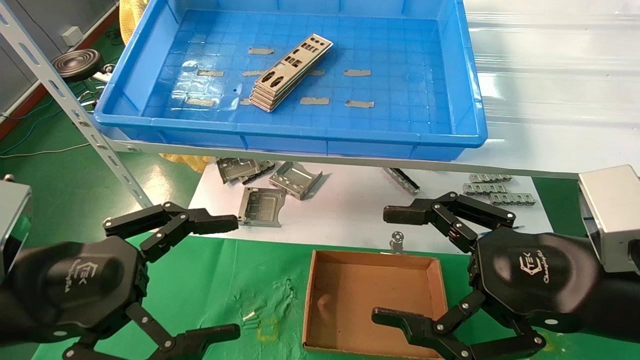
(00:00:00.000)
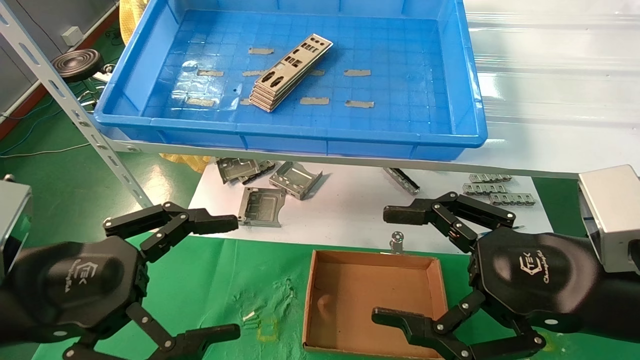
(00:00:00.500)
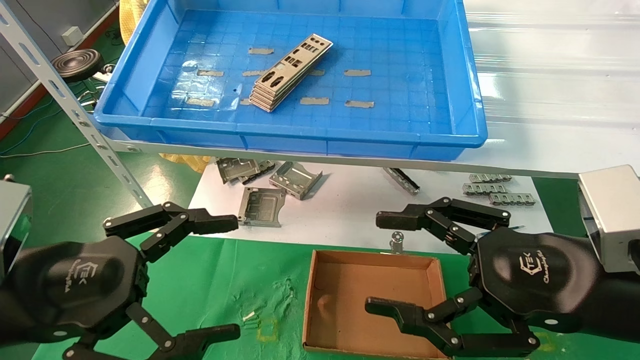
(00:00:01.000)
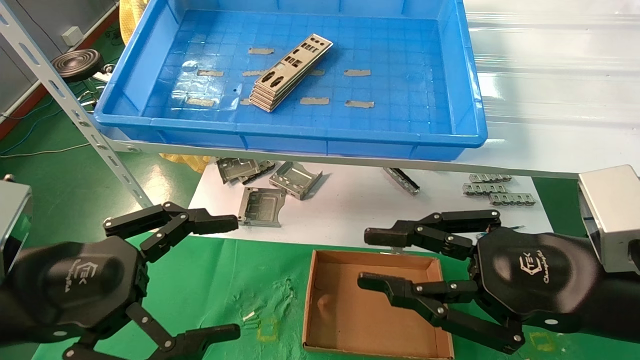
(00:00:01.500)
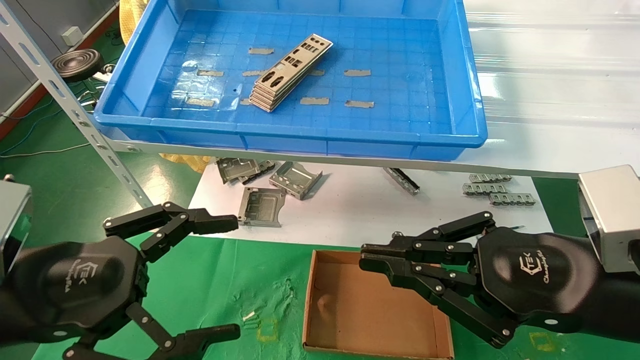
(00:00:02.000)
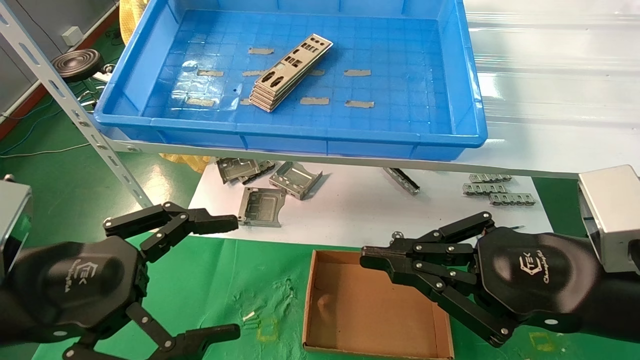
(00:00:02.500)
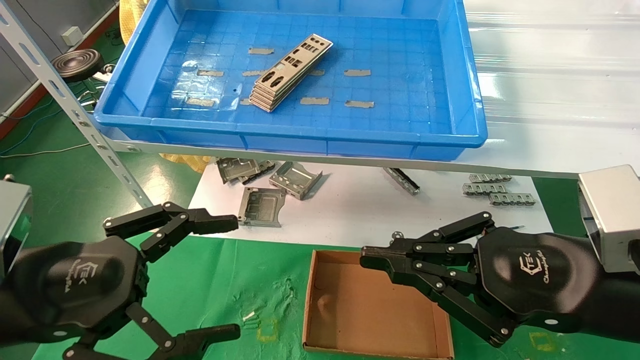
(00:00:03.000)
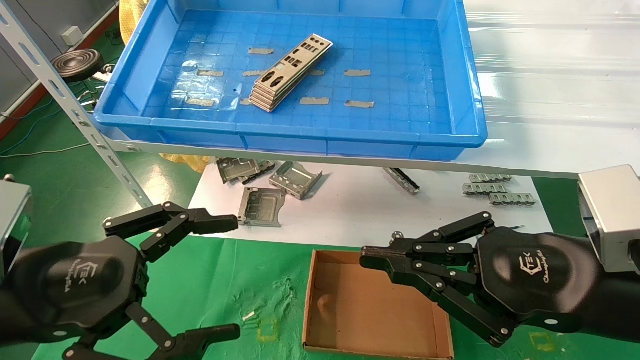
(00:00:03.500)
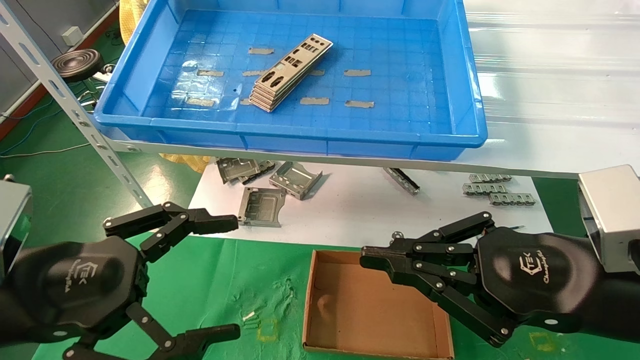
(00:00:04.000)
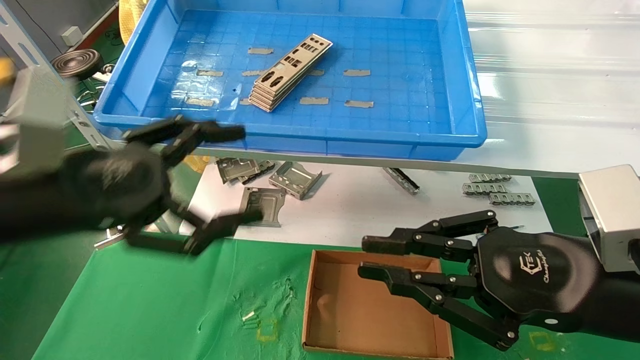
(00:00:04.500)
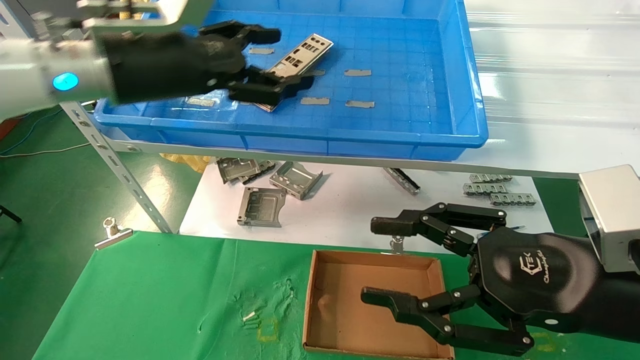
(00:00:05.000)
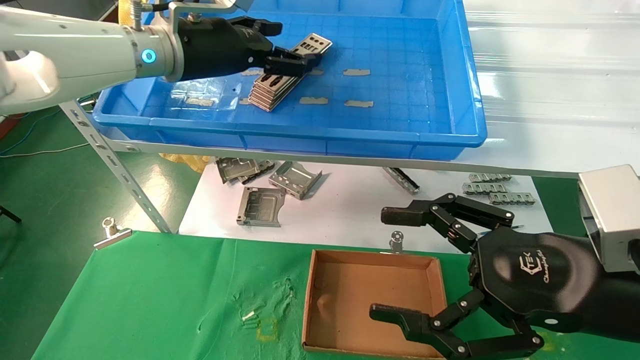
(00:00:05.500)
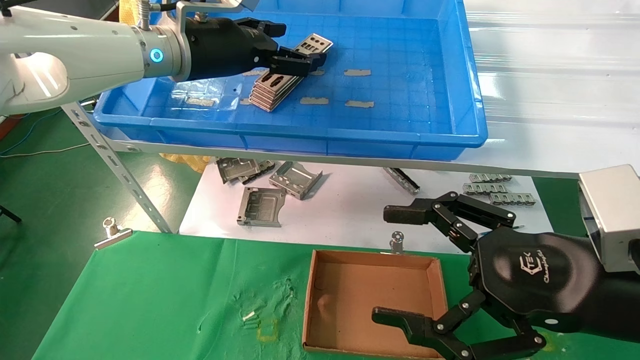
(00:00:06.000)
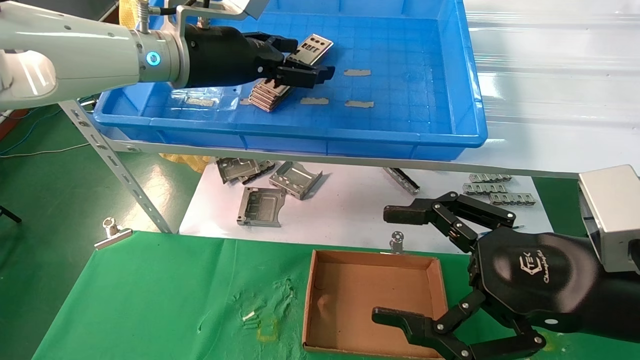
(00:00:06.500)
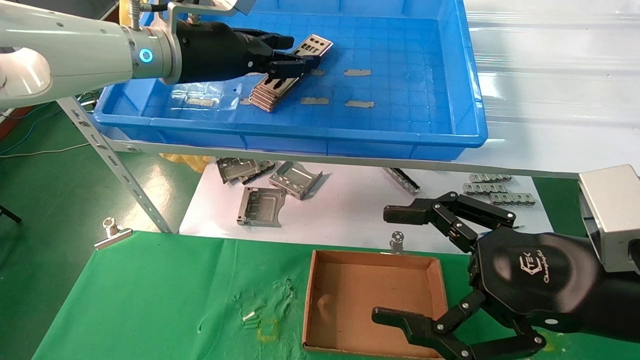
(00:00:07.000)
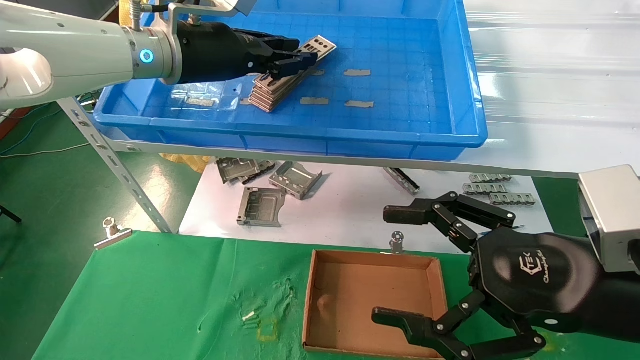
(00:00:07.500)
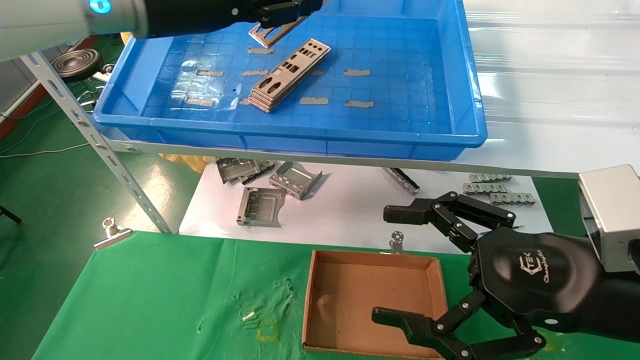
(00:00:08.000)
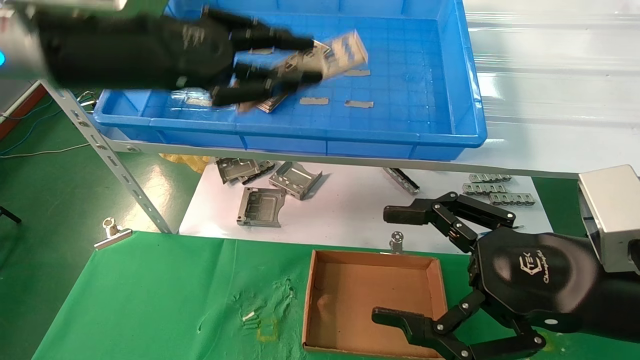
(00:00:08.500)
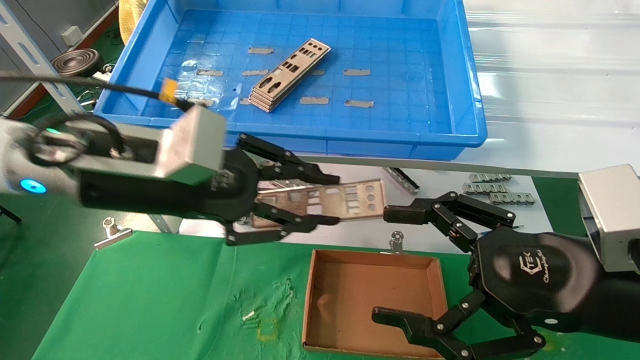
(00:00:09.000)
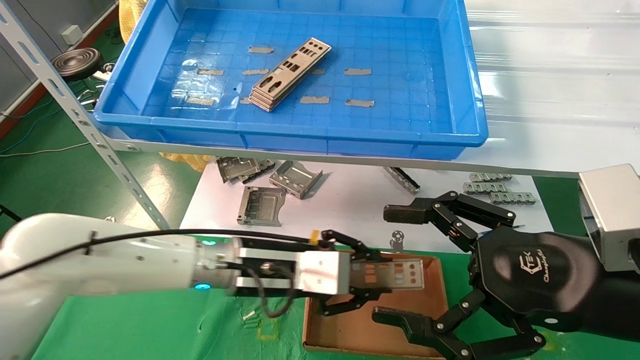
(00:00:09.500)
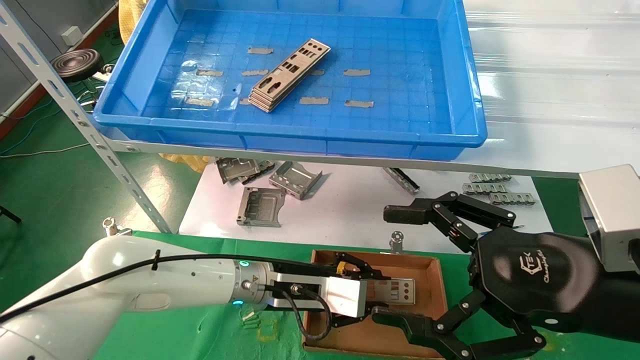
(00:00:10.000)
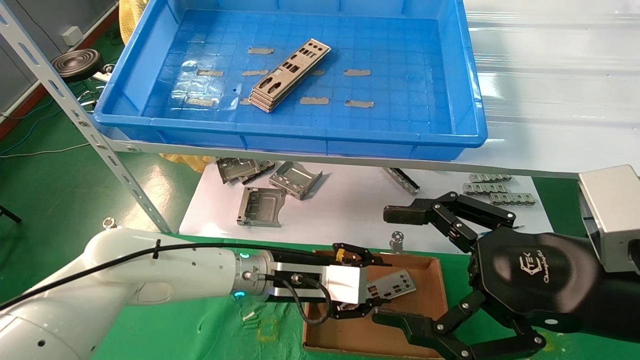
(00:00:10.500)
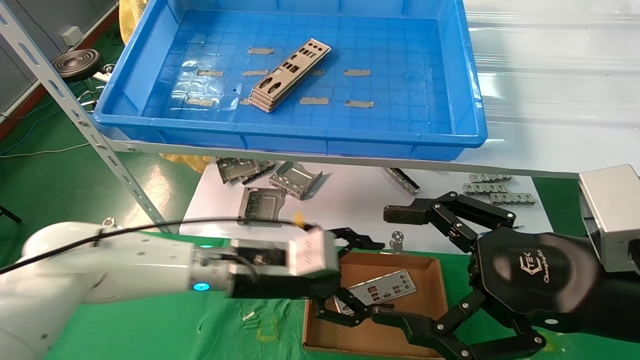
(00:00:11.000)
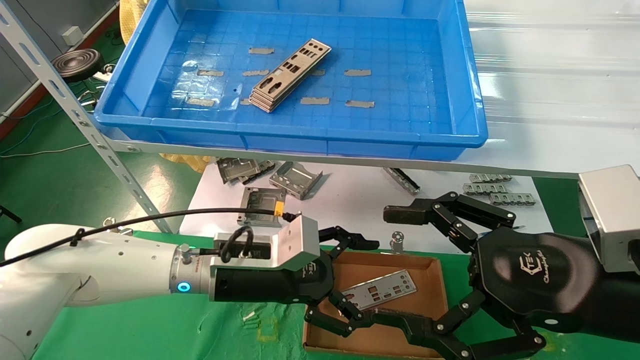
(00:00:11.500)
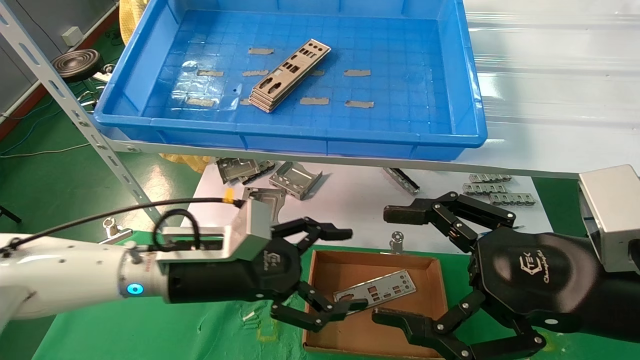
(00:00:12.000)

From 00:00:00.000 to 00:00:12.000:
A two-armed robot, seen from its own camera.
Task of the whole recording: pick up the parts on the tray and put them in the cardboard box.
Step, from 00:00:05.000 to 00:00:07.500: Pick up the IO bracket from the container box.
Step, from 00:00:08.000 to 00:00:10.500: Place the IO bracket into the ingredient slot.
From 00:00:00.000 to 00:00:02.000: The right gripper closes its fingers.
From 00:00:02.000 to 00:00:04.000: Neither gripper changes place.
From 00:00:04.000 to 00:00:06.000: The left gripper heads forward, upward and to the right, covering roughly 30 cm. Meanwhile the right gripper opens its fingers.
From 00:00:06.000 to 00:00:08.000: The left gripper shifts by approximately 5 cm, and closes its fingers.
From 00:00:08.000 to 00:00:10.000: The left gripper shifts roughly 35 cm downward.
From 00:00:10.000 to 00:00:12.000: The left gripper travels to the left, backward and upward by roughly 10 cm, and opens.

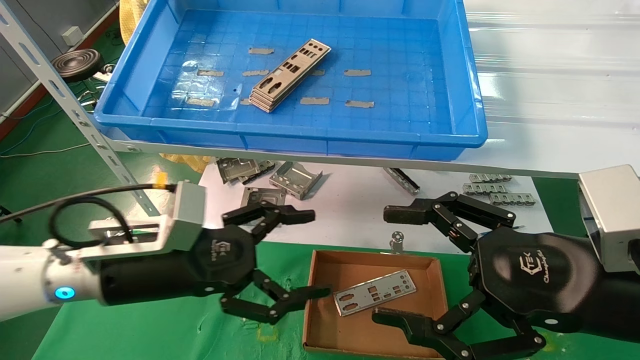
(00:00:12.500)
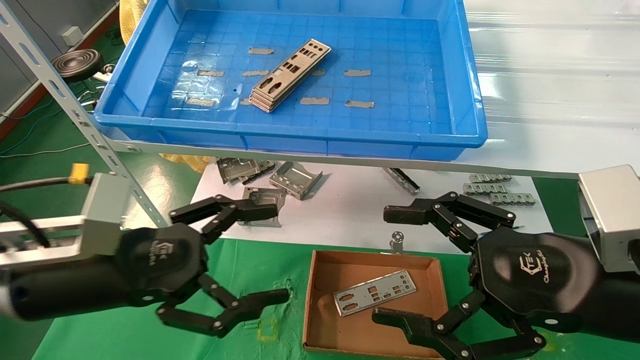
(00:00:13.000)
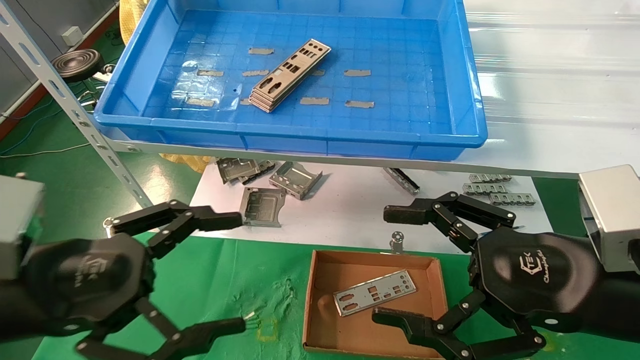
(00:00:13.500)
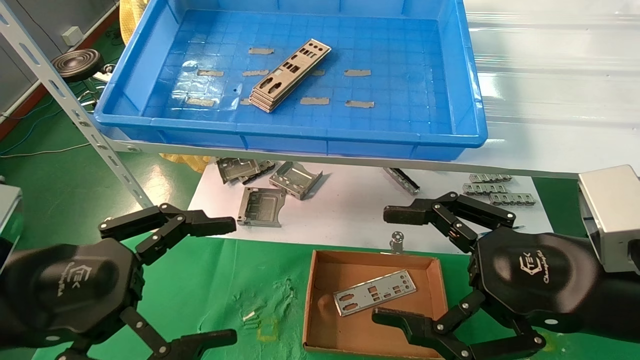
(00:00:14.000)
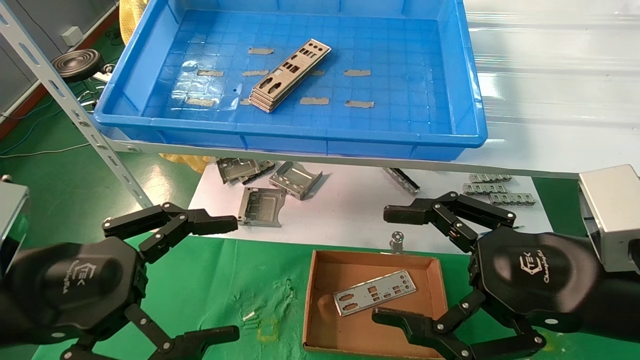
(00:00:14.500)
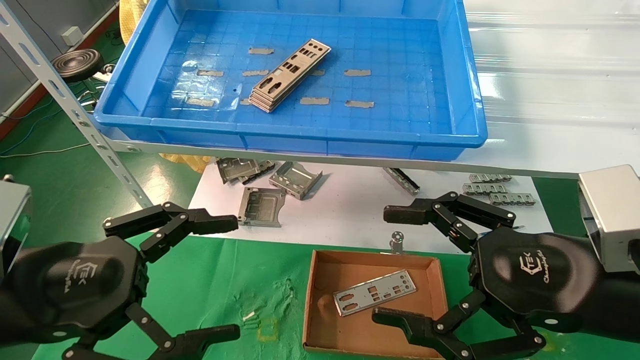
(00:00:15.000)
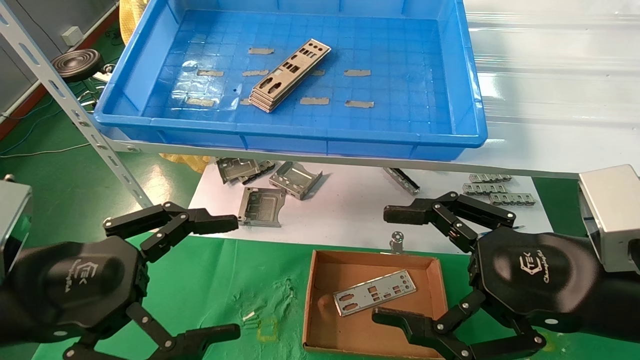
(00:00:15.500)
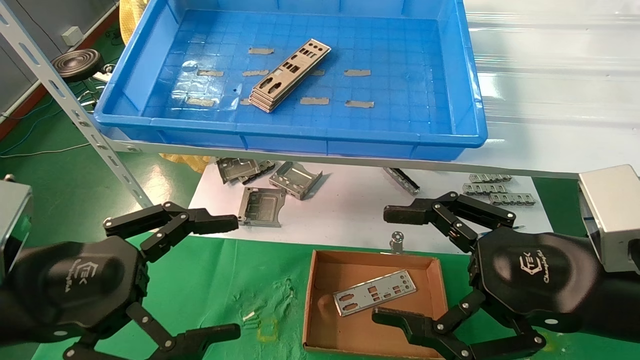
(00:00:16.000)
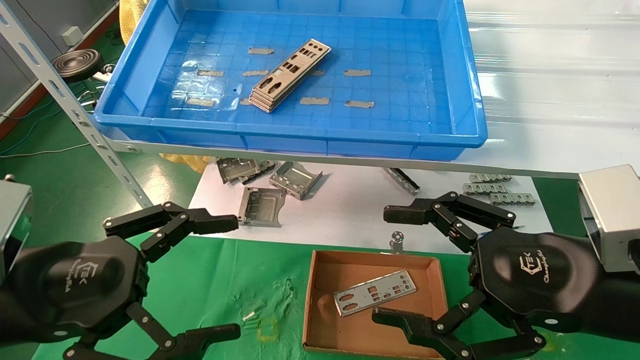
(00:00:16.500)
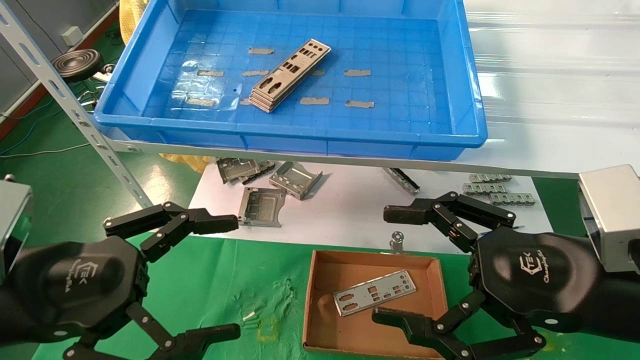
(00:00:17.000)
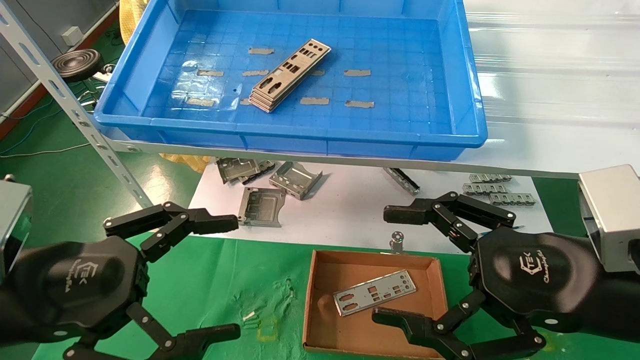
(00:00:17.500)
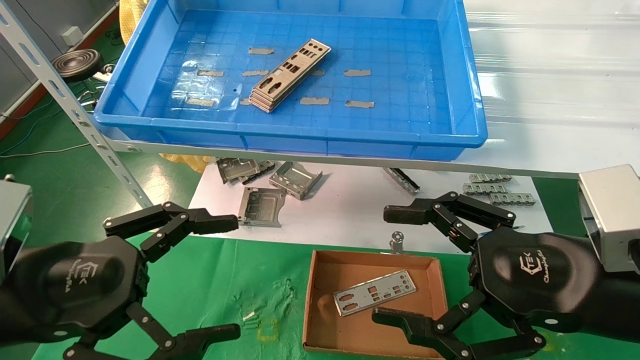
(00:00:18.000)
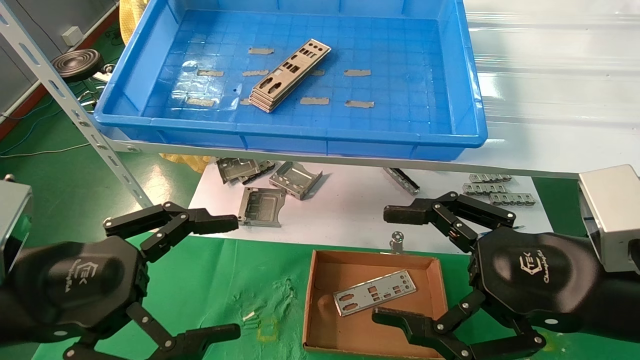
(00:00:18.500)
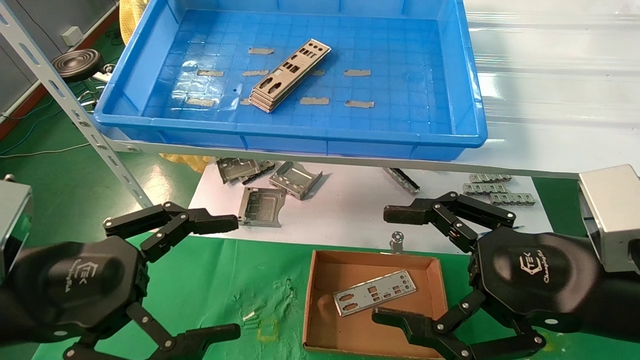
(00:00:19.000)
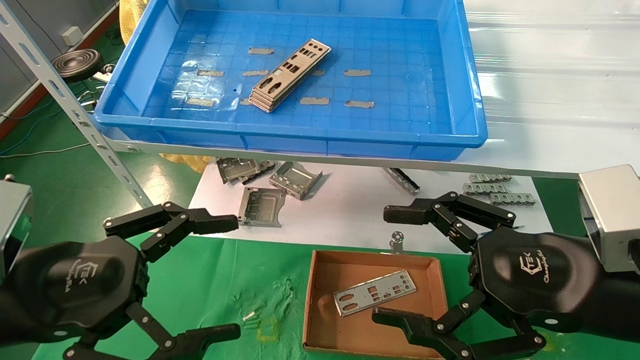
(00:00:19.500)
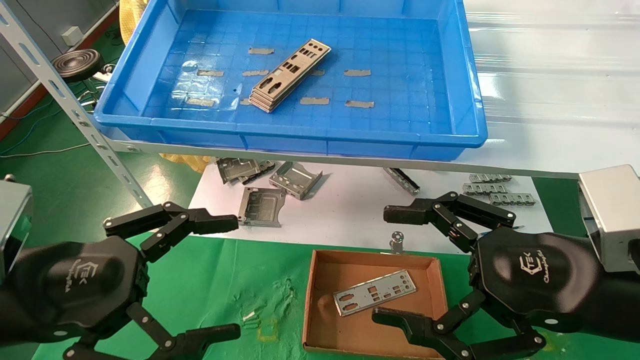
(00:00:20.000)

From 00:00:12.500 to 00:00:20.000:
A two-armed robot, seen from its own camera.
Task of the whole recording: pick up the parts on the tray and put them in the cardboard box.
From 00:00:12.500 to 00:00:14.500: The left gripper goes approximately 15 cm backward and to the left.
From 00:00:14.500 to 00:00:20.000: Neither gripper changes place.
